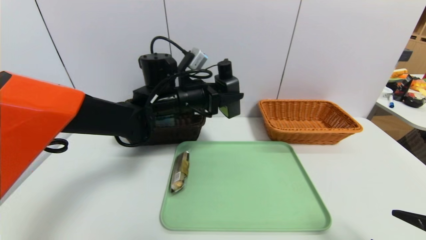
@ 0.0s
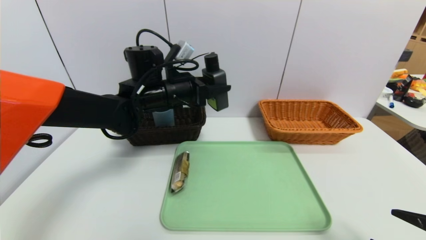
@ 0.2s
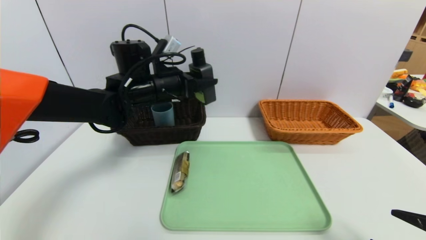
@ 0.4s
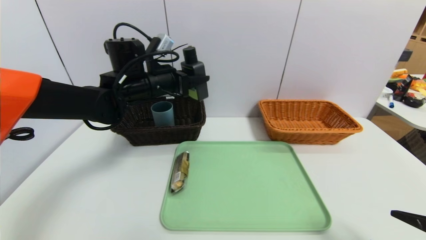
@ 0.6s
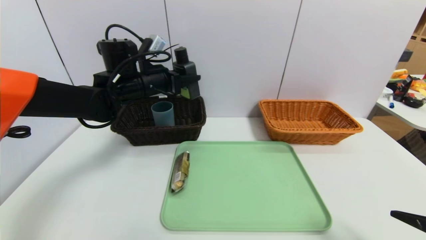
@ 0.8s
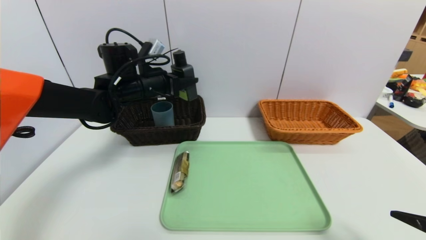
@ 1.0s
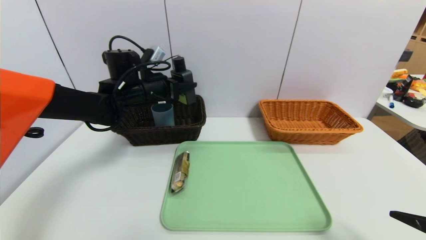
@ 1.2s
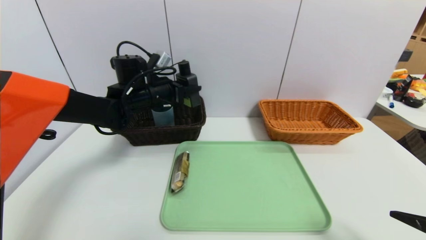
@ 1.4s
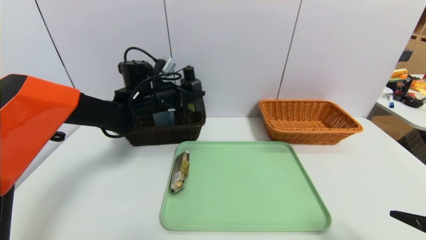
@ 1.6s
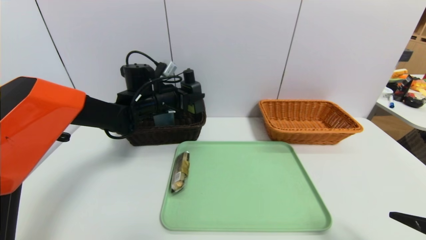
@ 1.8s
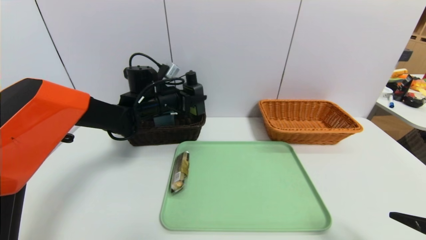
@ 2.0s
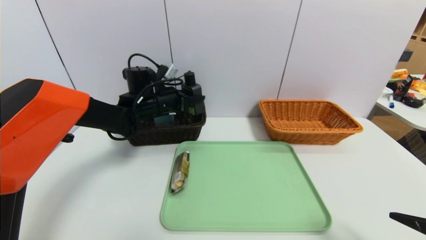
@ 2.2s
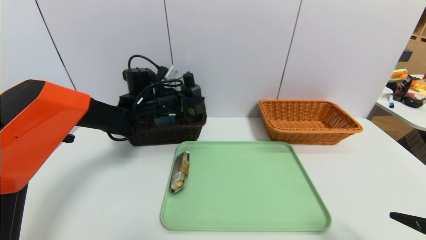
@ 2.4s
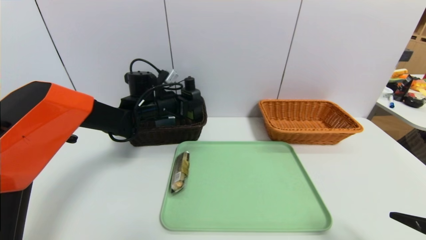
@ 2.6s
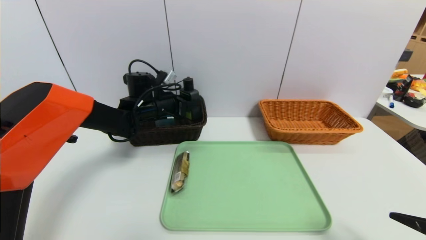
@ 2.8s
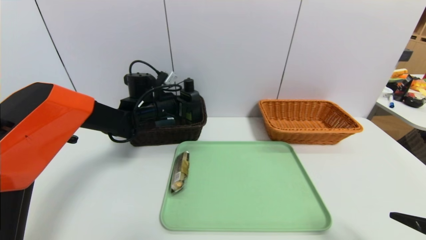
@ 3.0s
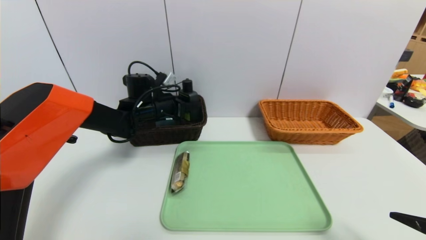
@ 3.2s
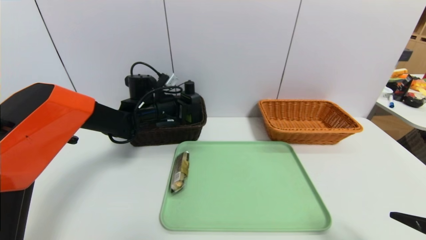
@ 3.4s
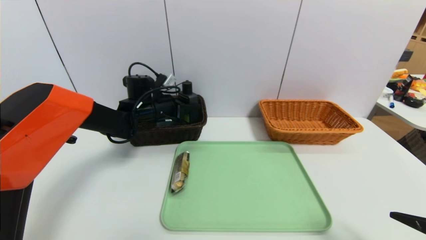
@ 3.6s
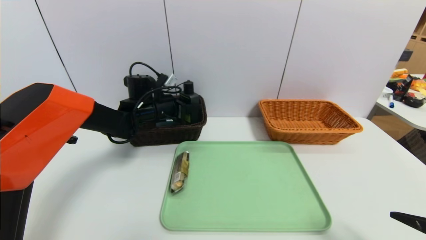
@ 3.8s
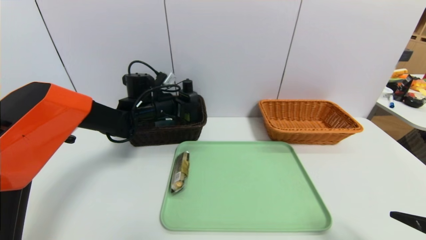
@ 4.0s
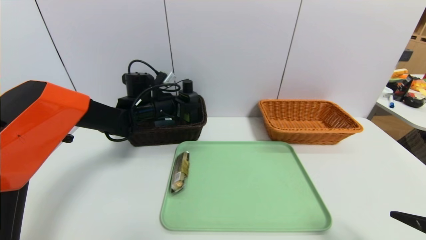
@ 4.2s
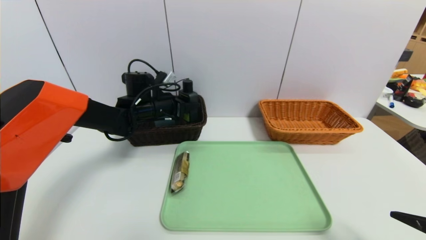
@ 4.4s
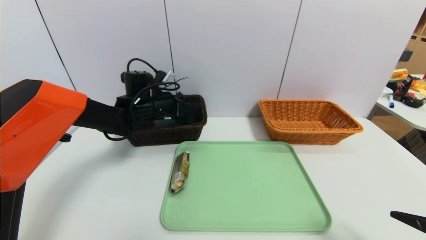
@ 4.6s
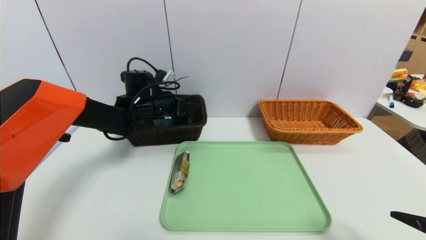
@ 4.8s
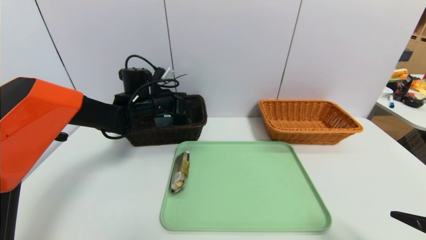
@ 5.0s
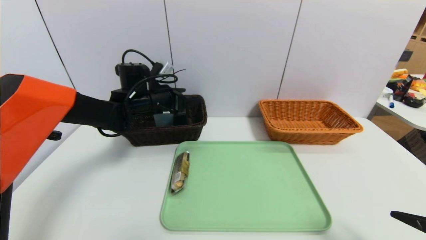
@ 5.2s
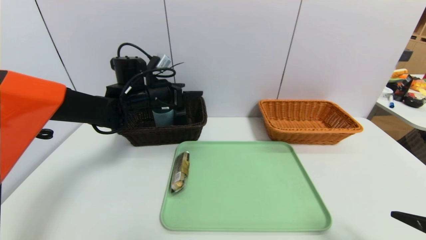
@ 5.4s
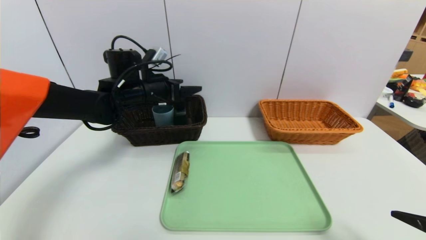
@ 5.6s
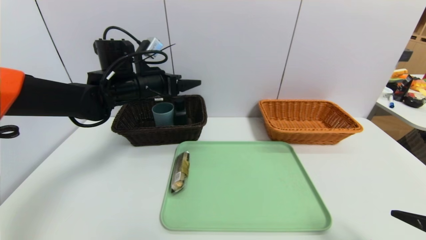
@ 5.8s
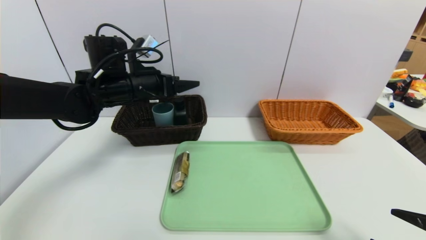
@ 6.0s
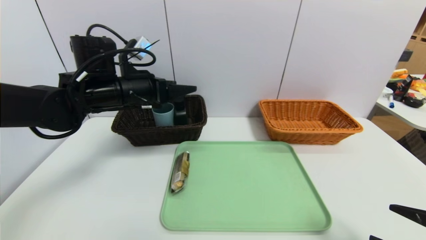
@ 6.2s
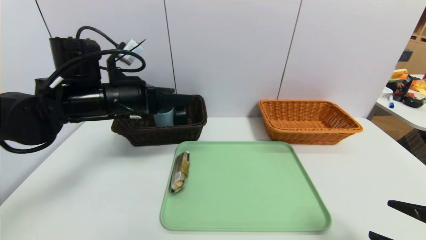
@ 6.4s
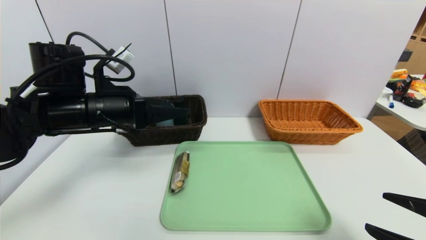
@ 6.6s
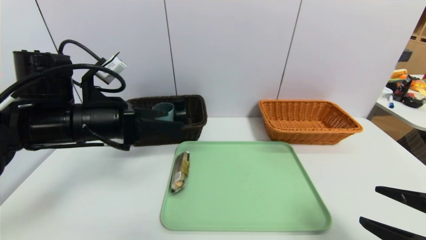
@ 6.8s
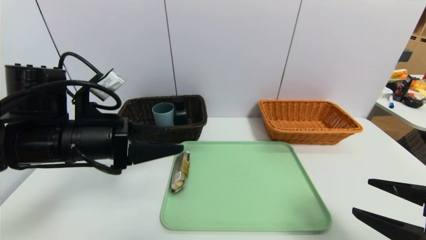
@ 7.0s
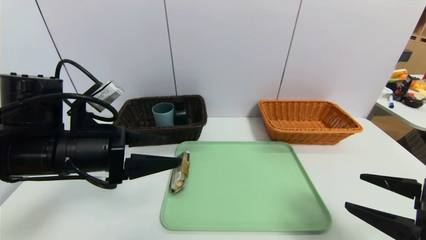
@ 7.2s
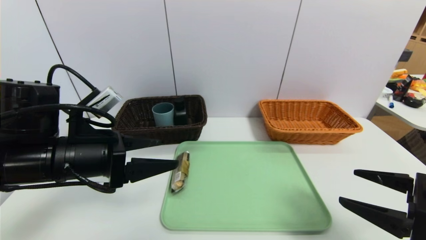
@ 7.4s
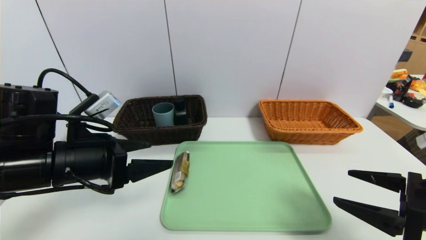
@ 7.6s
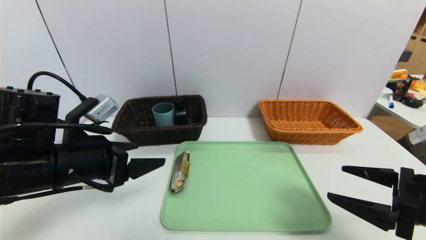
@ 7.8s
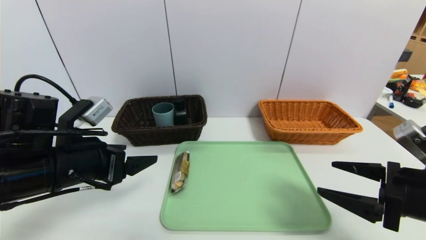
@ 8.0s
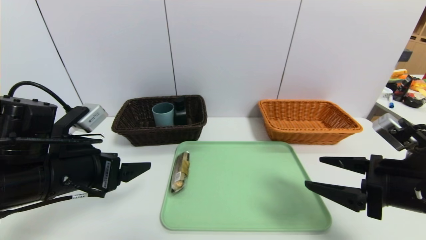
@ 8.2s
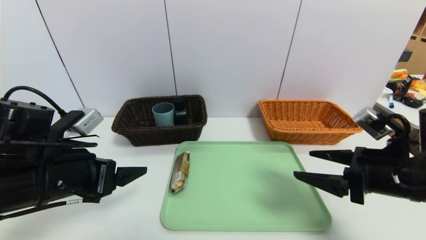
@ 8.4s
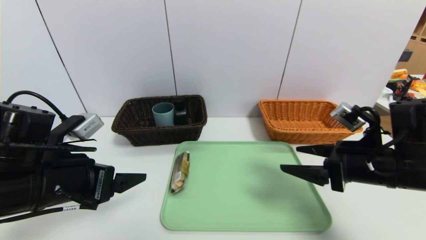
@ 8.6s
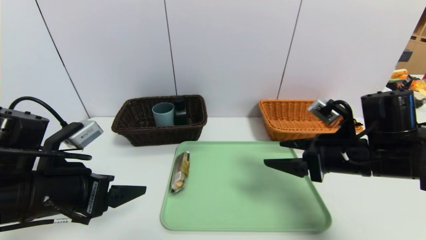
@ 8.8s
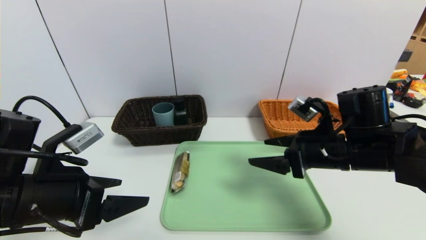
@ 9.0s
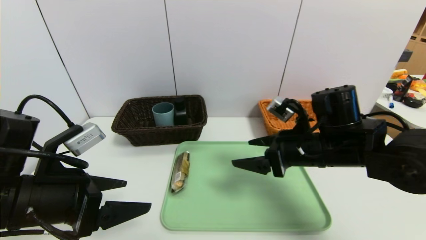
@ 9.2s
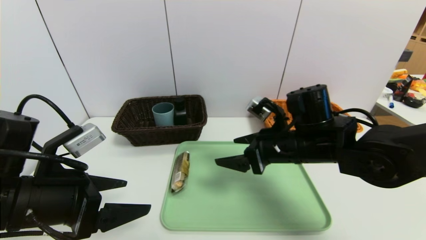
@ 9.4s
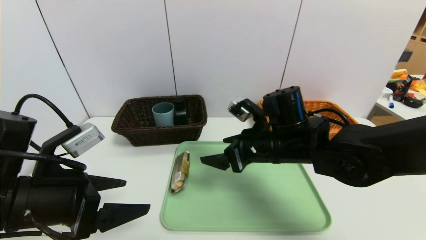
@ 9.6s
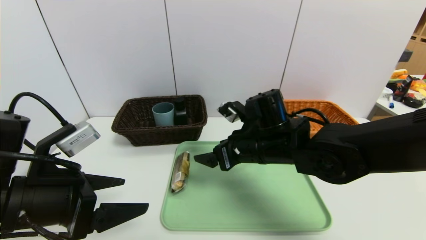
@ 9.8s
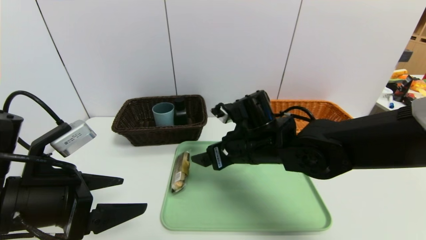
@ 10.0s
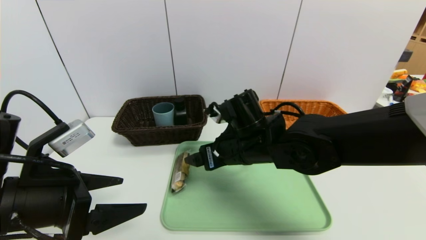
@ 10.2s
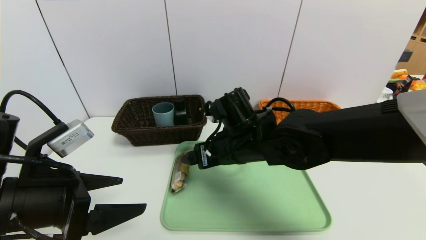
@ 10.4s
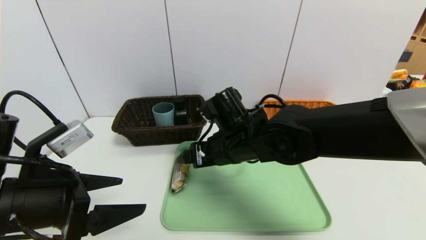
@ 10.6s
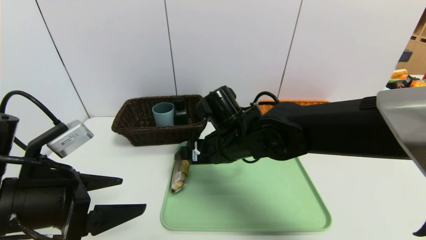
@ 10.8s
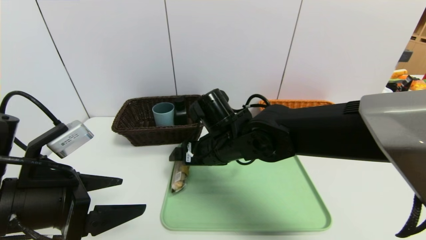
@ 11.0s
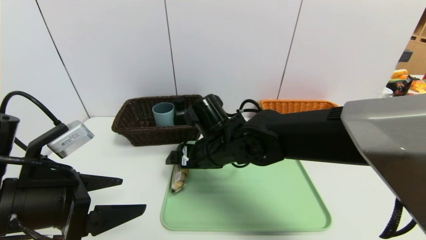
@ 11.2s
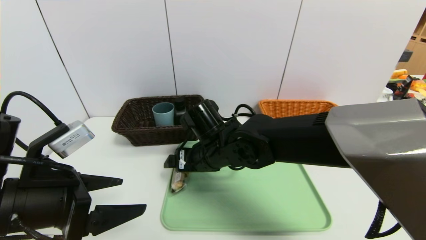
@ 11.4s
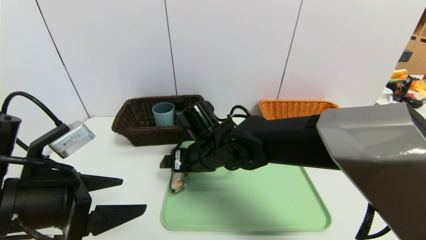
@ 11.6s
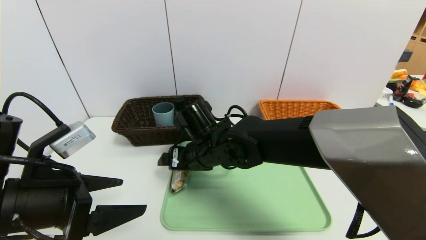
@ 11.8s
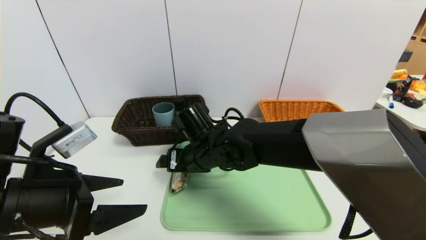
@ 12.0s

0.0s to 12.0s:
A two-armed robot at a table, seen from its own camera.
Task of the whole recording: place the food in the right basket with the right gripper, and place the non food items in the left basket with the left gripper.
Step, 0.0s to 5.0s: Grasp the hard cleanser and put it in the left basket.
0.0s to 1.6s: The left gripper goes about 10 cm to the left and forward.
1.6s to 3.0s: The grippers stay close to where they were, moving slightly.
3.0s to 4.4s: The two grippers keep their place.
4.4s to 6.0s: The left gripper is displaced upward and backward by some 10 cm, and opens its fingers.
6.0s to 7.6s: The right gripper goes roughly 5 cm forward, while the left gripper shifts approximately 15 cm backward.
7.6s to 9.0s: The right gripper travels forward and to the left by roughly 15 cm.
9.0s to 10.4s: The right gripper shifts roughly 15 cm to the left.
10.4s to 12.0s: The right gripper travels to the left by about 5 cm.

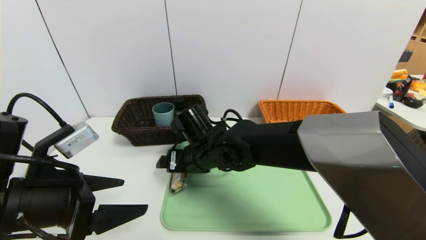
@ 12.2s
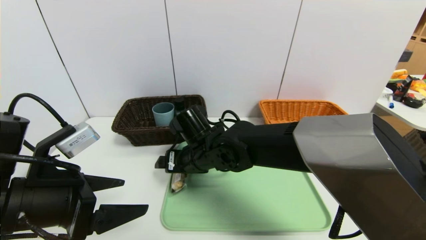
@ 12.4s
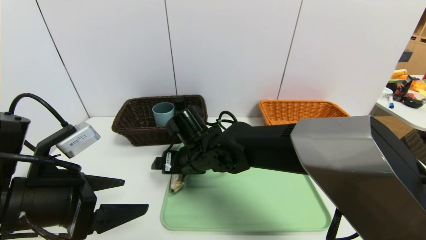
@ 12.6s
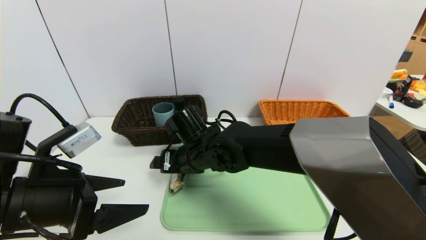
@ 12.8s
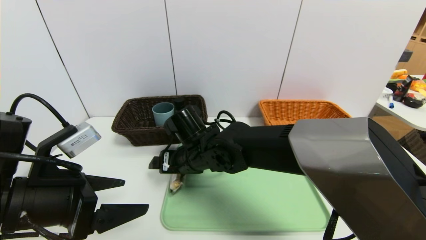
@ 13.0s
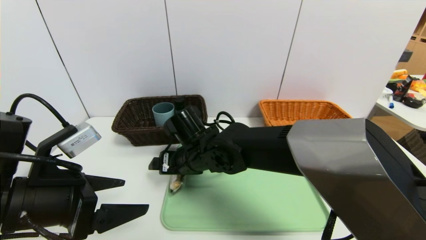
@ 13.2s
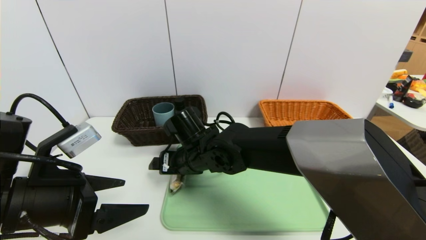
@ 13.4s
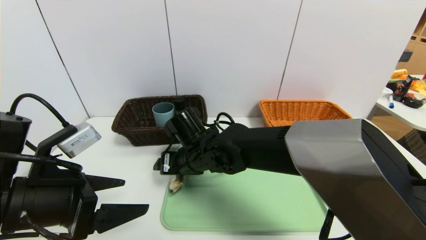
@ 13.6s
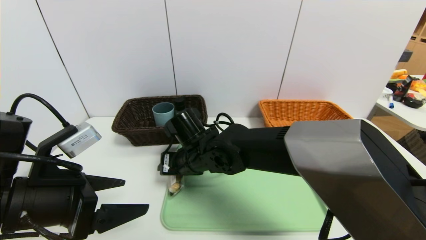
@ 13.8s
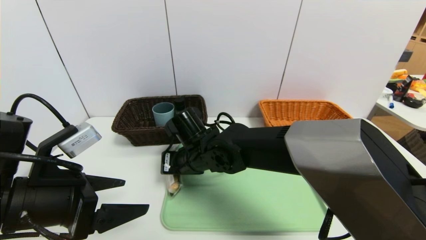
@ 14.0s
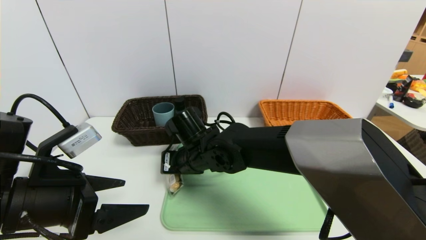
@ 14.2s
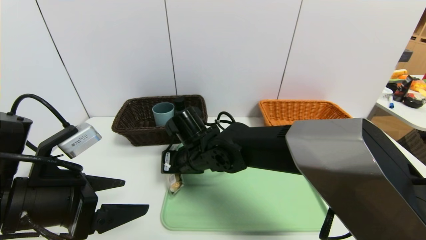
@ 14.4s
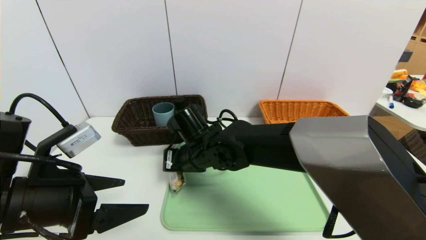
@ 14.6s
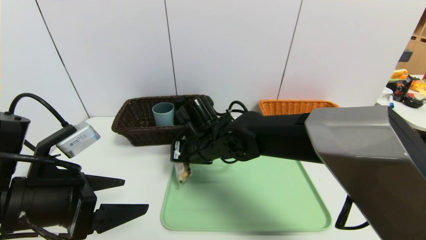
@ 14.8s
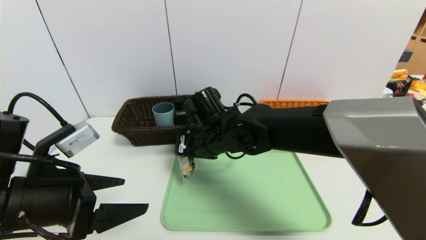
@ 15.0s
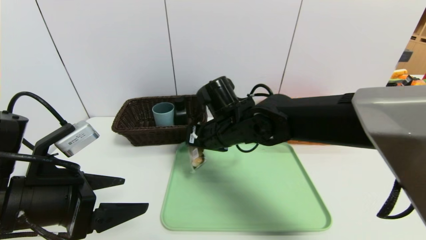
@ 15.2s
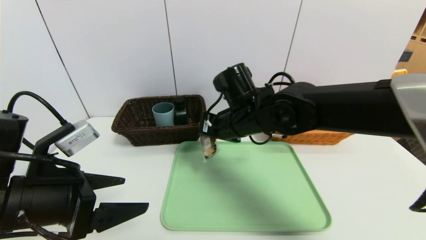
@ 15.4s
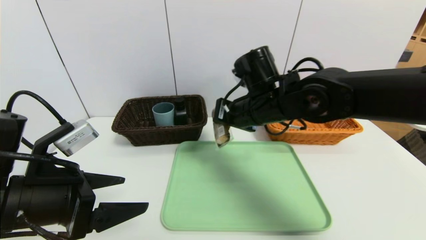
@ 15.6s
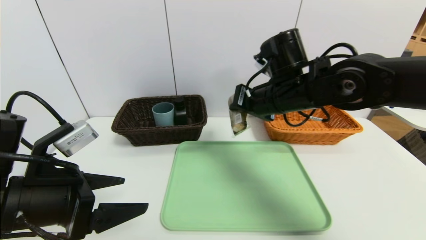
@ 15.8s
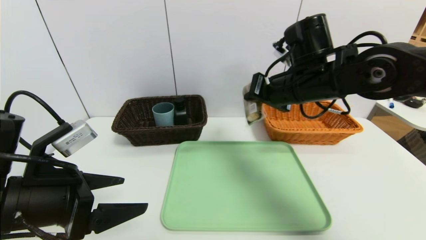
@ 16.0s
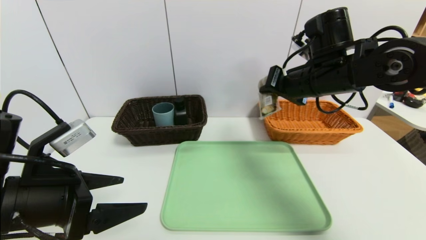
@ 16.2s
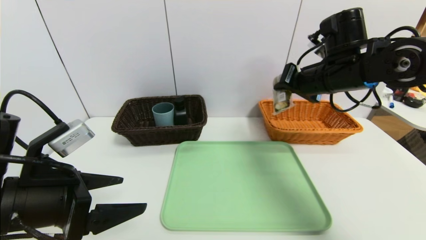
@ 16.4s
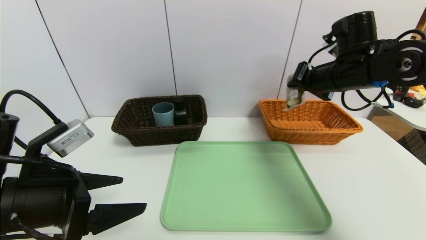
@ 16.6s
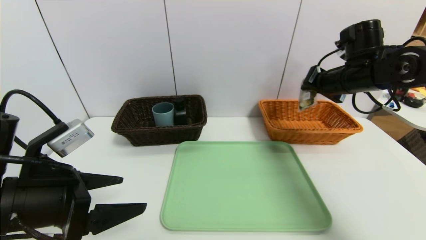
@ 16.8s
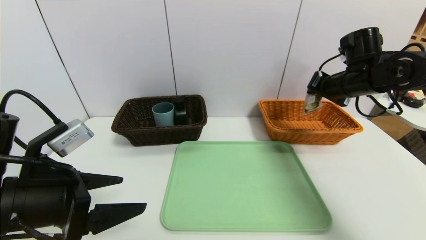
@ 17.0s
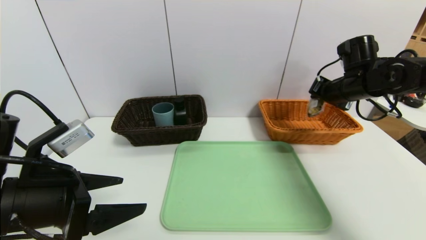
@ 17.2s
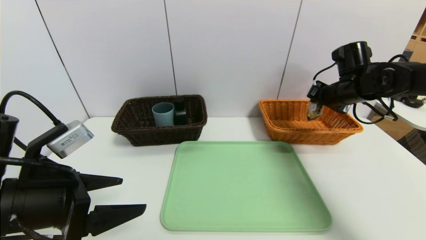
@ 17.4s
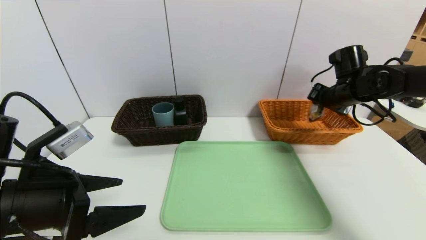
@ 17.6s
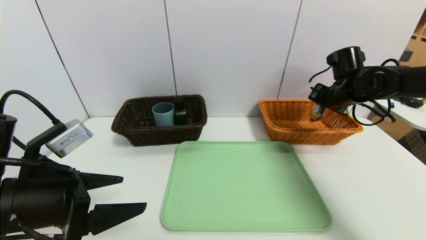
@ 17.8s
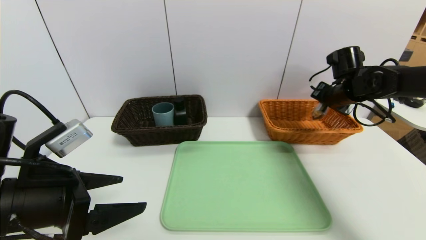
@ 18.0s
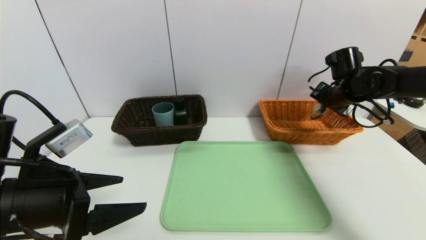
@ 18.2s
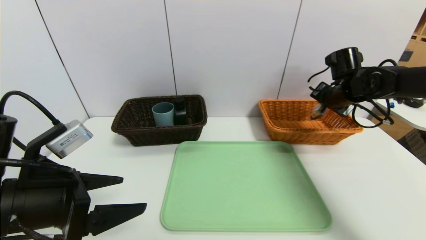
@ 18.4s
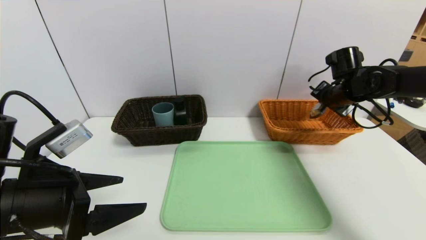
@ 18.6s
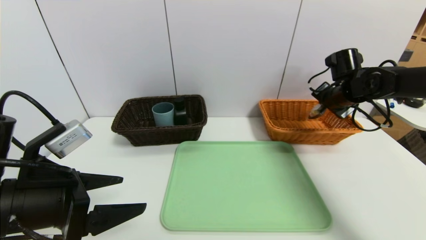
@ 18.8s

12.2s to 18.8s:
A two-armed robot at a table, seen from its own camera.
Task of the whole recording: place the food in the right basket with the right gripper, and place the non food items in the left basket with the left gripper.
12.2s to 13.8s: The right gripper closes.
13.8s to 15.4s: The right gripper shifts approximately 10 cm to the right and upward, and closes up.
15.4s to 17.2s: The right gripper shifts some 25 cm to the right.
